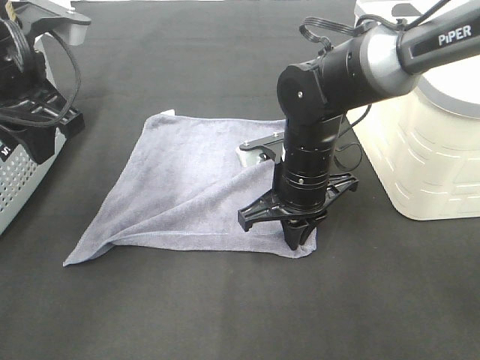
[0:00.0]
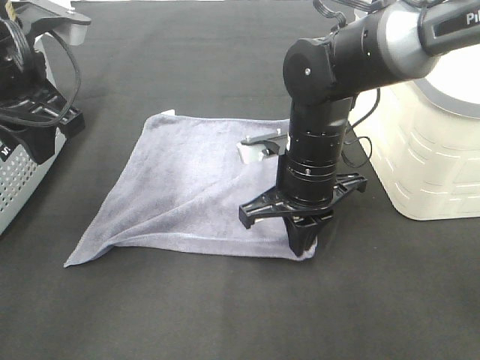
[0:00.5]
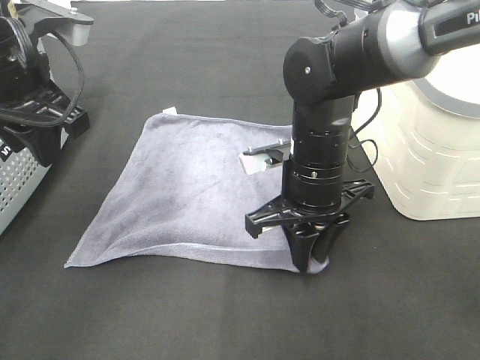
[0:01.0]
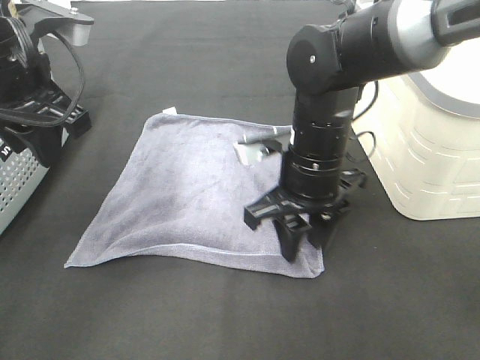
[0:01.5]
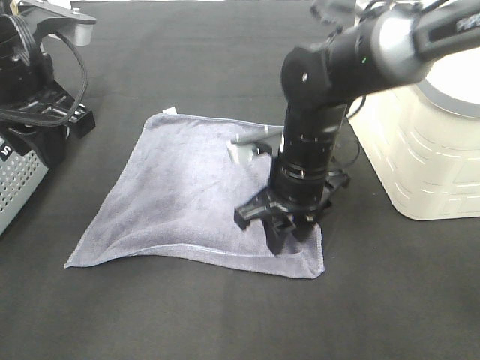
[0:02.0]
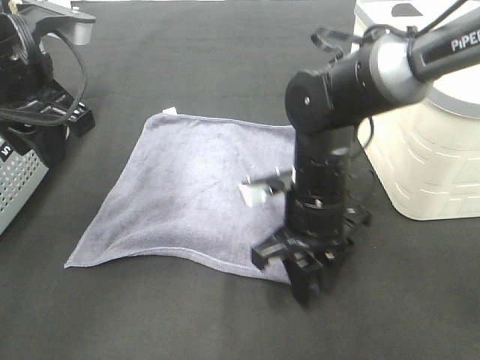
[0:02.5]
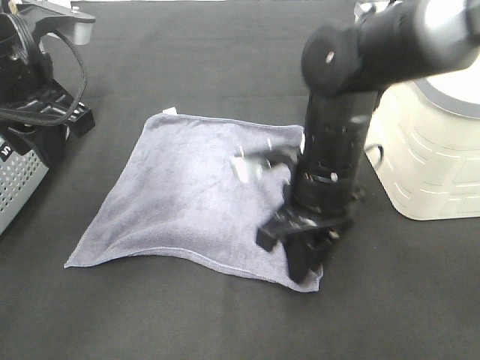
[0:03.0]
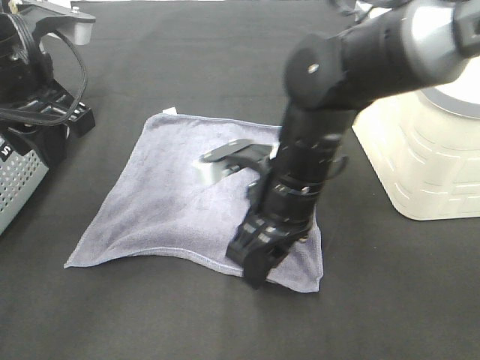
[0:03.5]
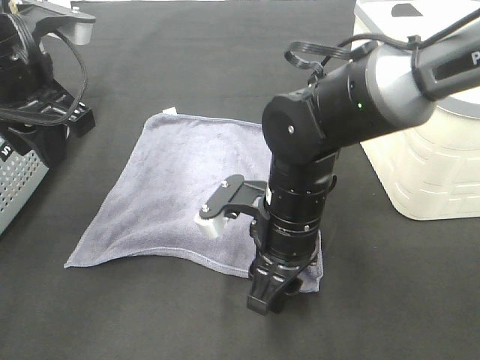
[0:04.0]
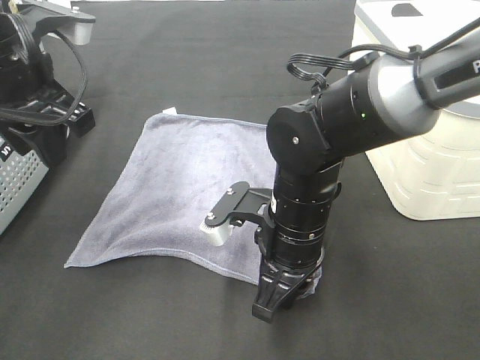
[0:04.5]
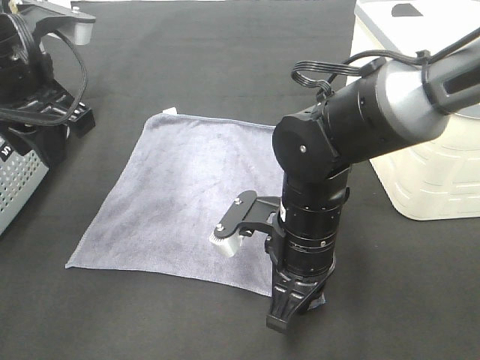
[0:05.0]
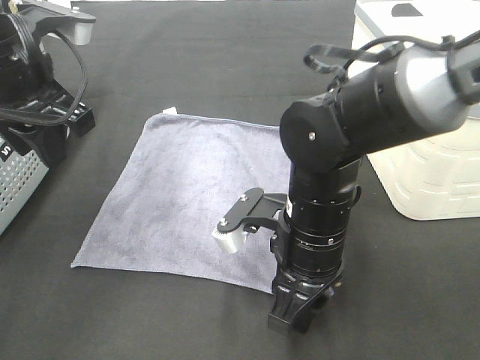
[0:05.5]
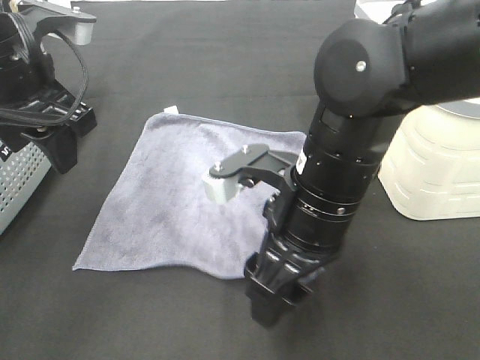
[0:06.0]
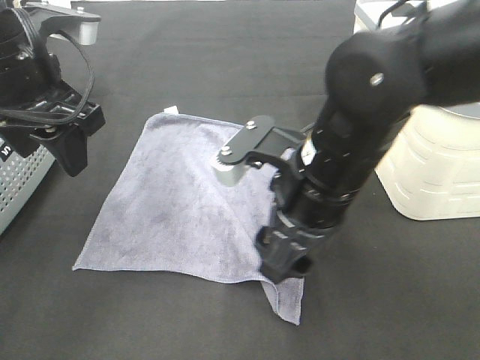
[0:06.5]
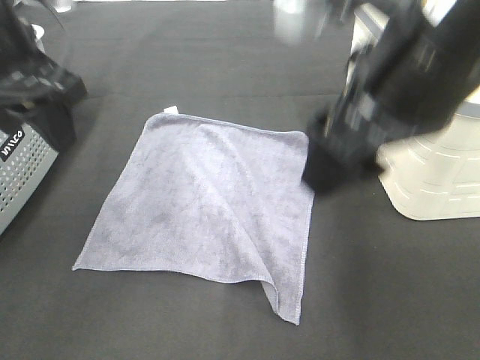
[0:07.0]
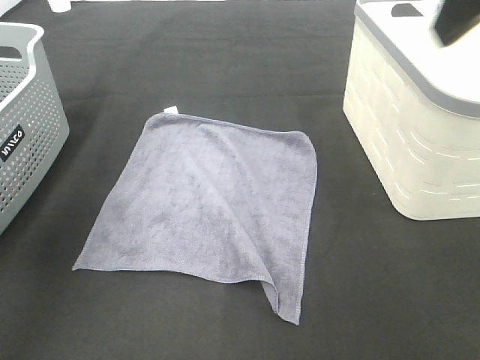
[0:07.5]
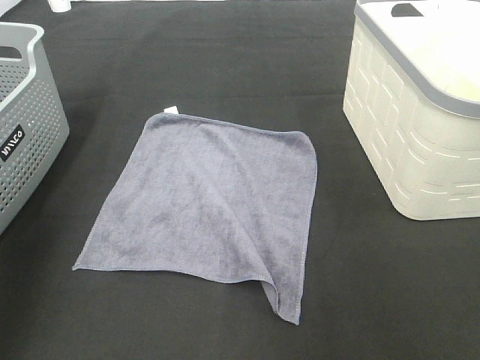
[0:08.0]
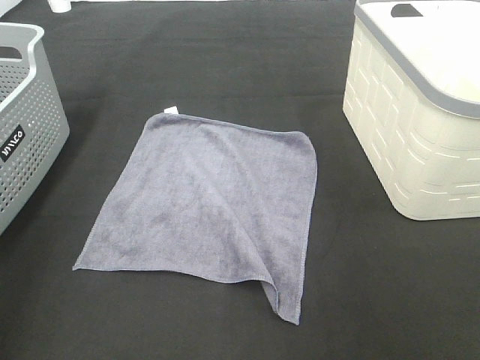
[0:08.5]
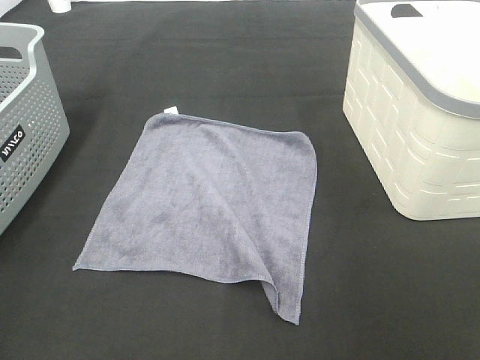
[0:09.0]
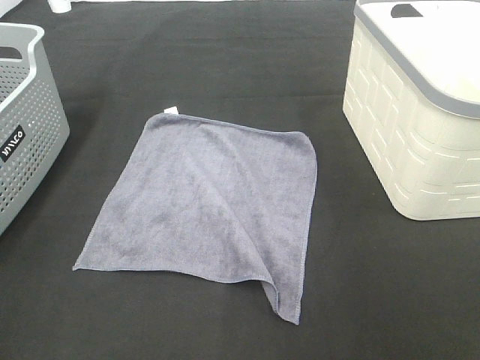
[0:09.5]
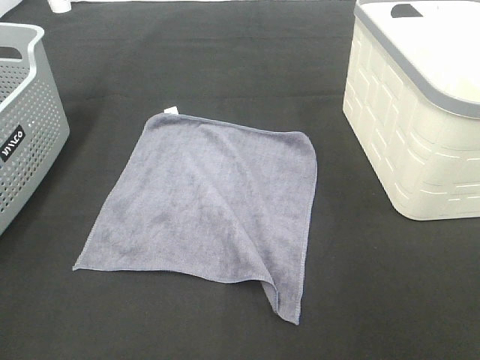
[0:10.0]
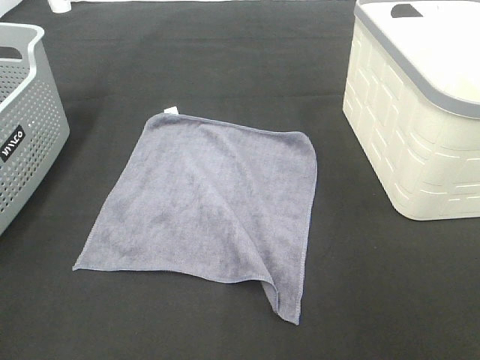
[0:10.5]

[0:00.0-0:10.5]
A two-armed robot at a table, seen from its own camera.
Task of the whole recording: Remove the towel and place it.
0:00.0 to 0:02.0: The right gripper opens its fingers.
0:02.0 to 0:04.0: The right gripper travels backward by about 5 cm.
0:04.0 to 0:06.5: The right gripper goes some 10 cm upward, and closes and opens again.
0:06.5 to 0:08.5: The right gripper travels to the right, upward and backward by approximately 30 cm. Meanwhile the left gripper is displaced backward and to the left by about 25 cm.

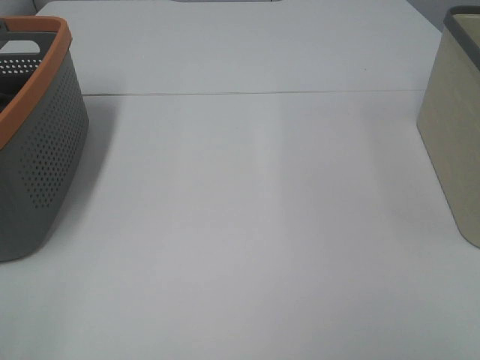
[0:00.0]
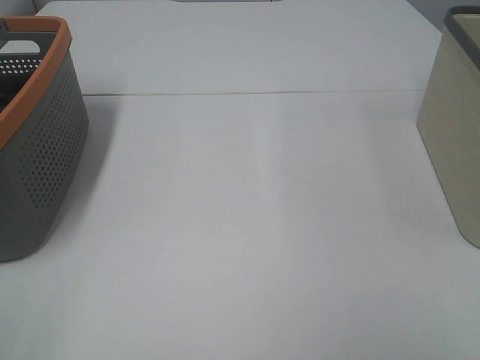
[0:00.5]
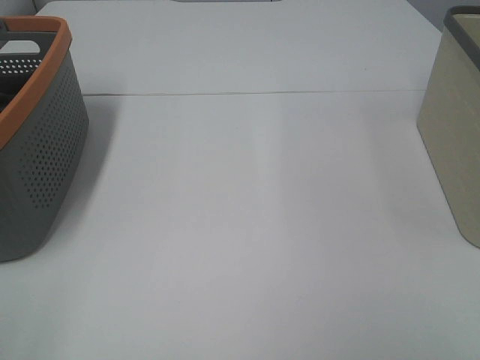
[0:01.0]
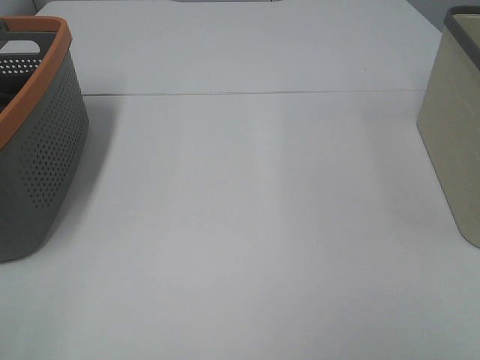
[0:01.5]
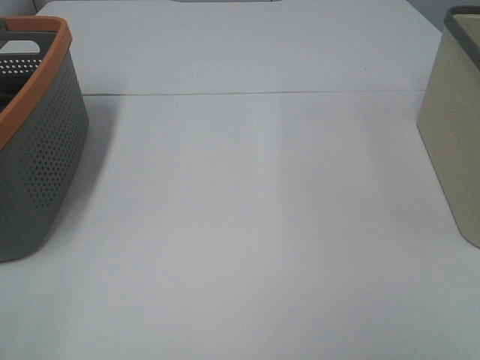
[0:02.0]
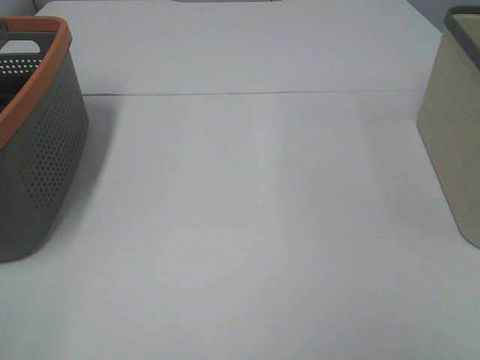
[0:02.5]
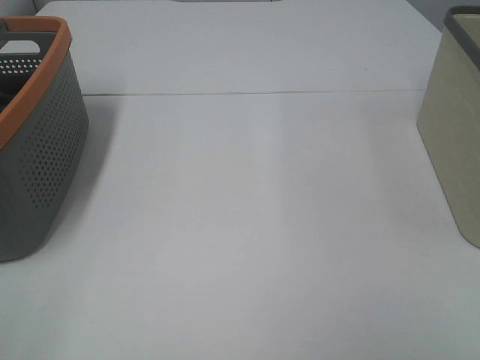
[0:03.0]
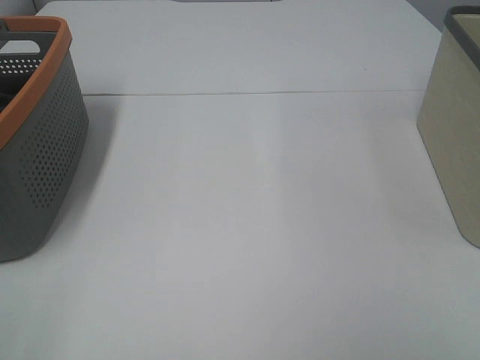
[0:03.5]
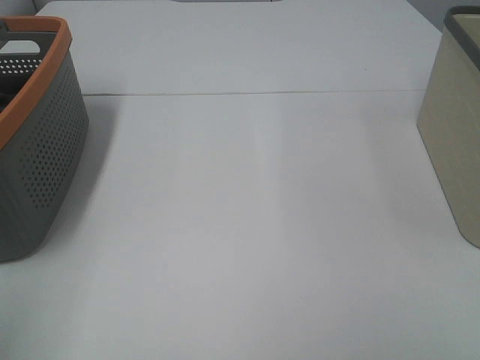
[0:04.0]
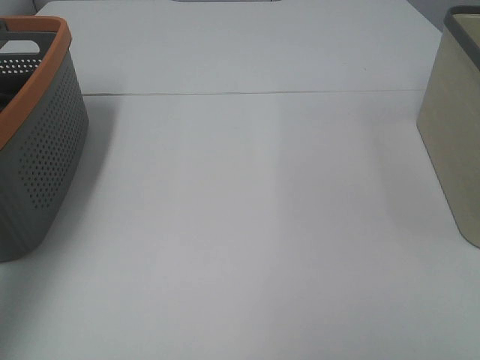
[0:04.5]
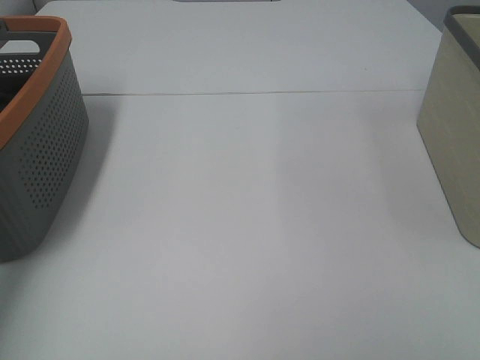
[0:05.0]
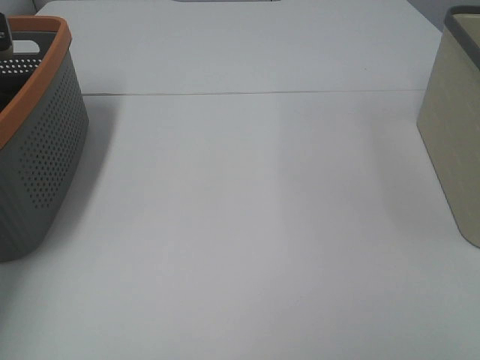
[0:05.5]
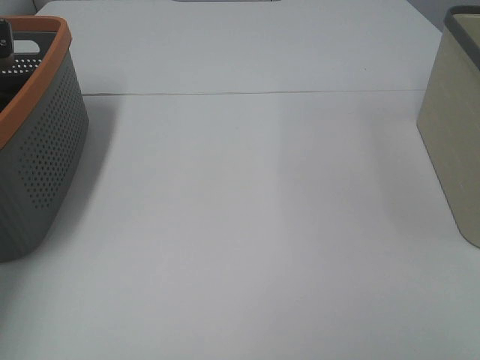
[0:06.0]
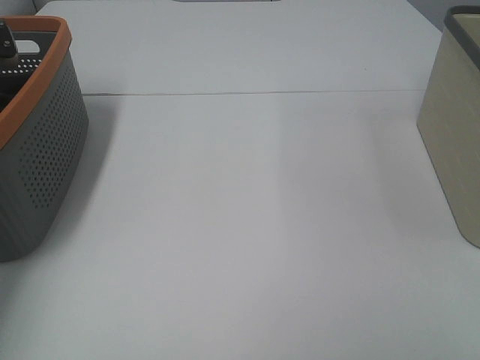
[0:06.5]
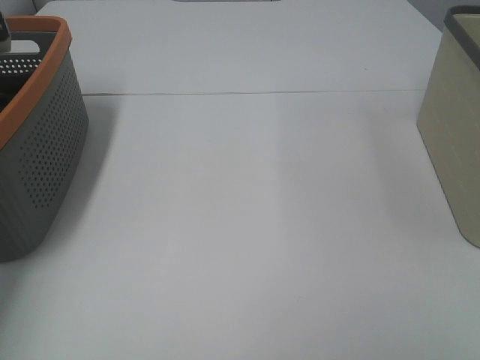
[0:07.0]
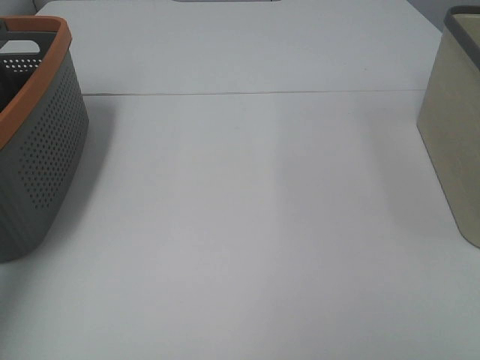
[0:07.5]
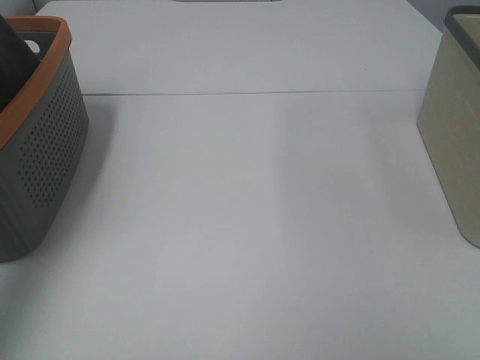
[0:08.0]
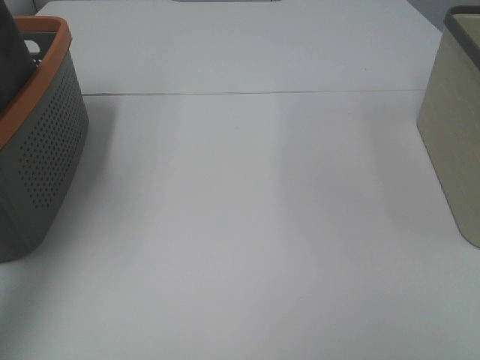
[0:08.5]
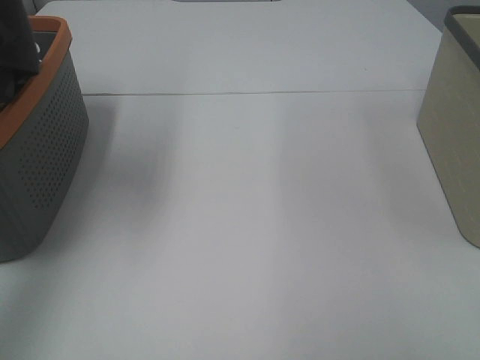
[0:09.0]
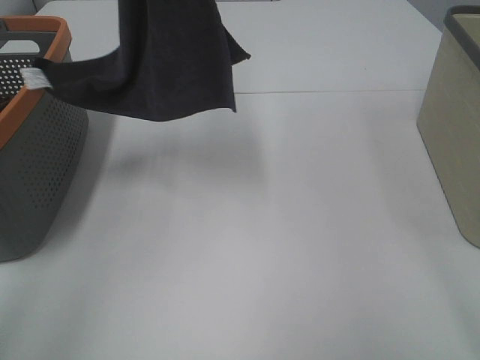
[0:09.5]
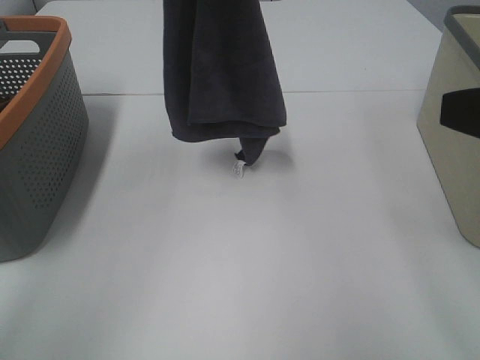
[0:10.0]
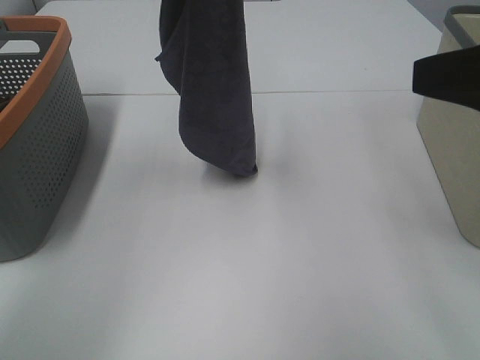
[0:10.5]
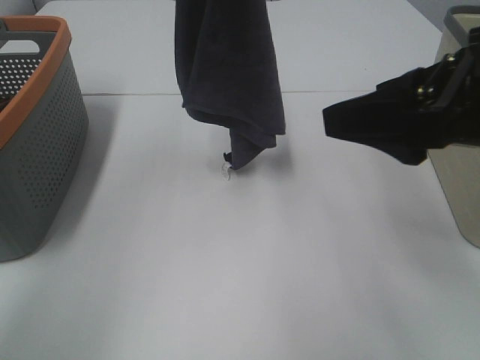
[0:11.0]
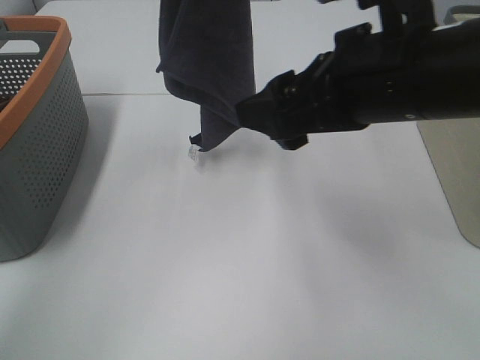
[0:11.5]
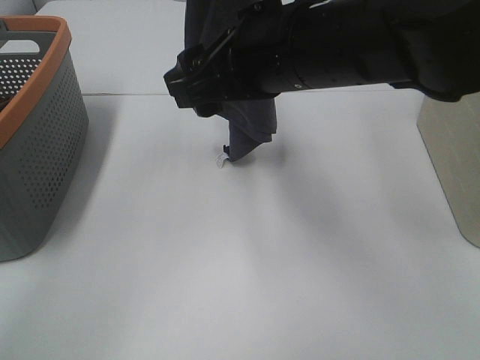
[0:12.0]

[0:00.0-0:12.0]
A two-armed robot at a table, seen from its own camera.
Task of the whole recording: Remove the towel and place it.
0:00.0 to 0:02.0: Both grippers stay put.
0:04.0 to 0:06.0: The left gripper travels forward and downward by about 40 cm, and closes up.
0:06.0 to 0:08.0: The left gripper moves upward and backward, some 30 cm, and closes up.
0:08.0 to 0:10.0: The right gripper travels forward by approximately 15 cm, while the left gripper goes roughly 20 cm to the right.
0:10.0 to 0:12.0: The right gripper shifts approximately 25 cm to the left and forward.

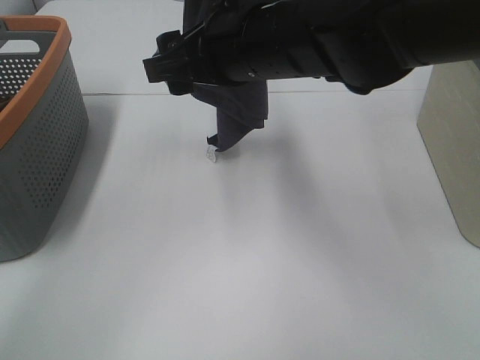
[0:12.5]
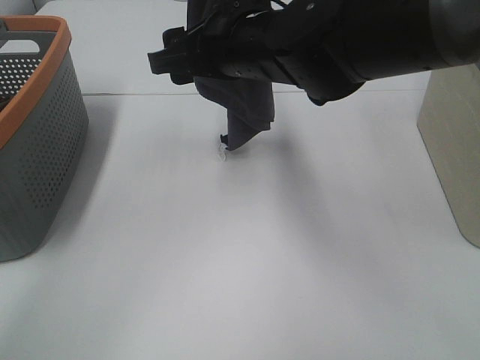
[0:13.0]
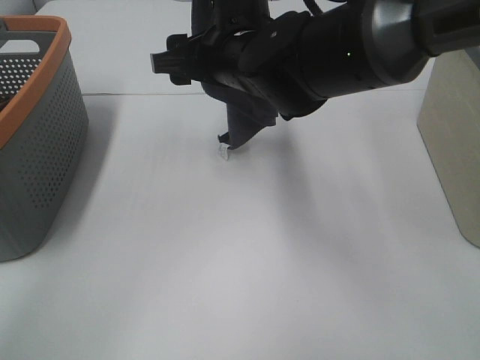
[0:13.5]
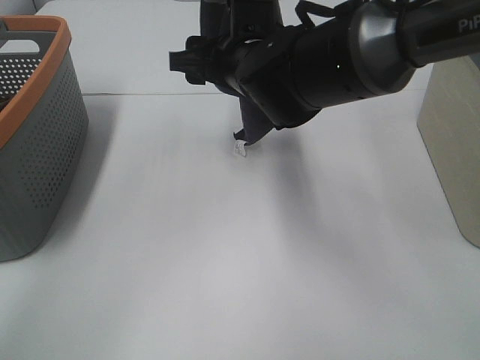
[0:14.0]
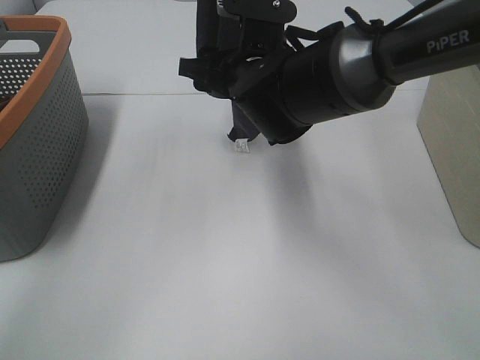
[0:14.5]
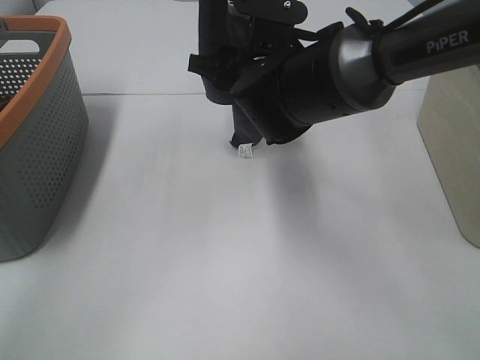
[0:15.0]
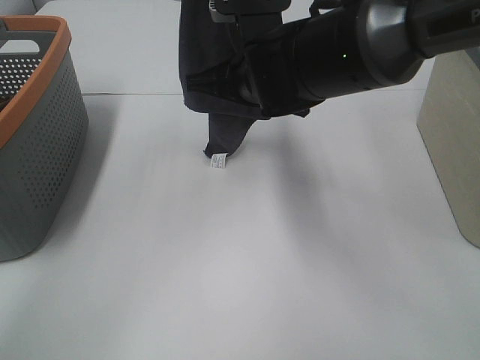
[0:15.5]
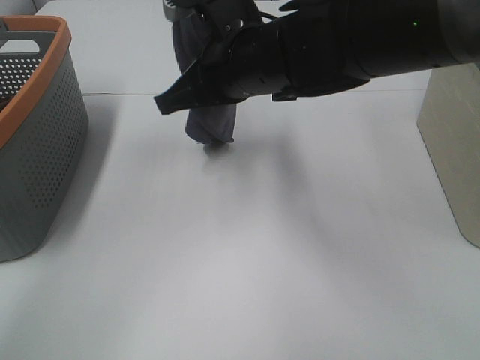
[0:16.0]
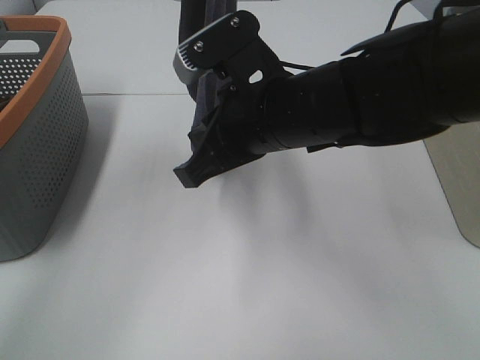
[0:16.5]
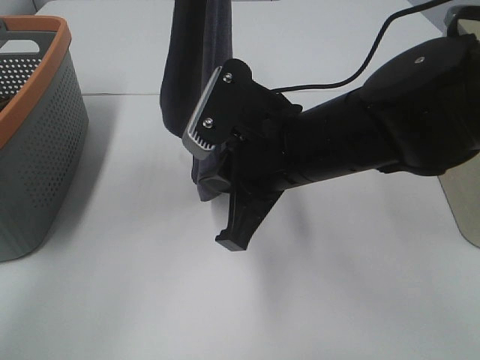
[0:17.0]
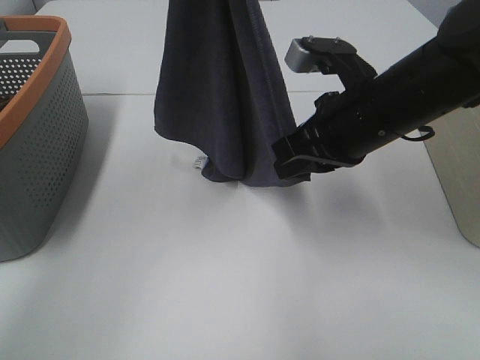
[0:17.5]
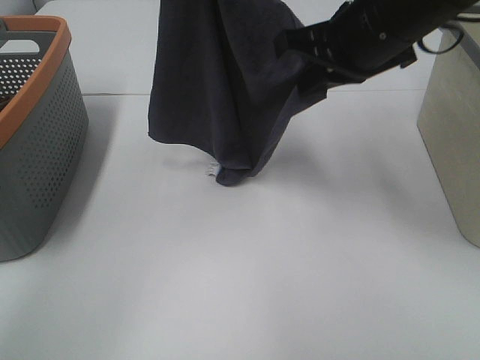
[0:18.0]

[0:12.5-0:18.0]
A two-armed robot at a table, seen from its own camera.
Task of the whole recording: Remove the towel and place it.
Step, 0:12.5 to 0:15.5: Right hand: grab a corner of the grey towel and straighten it.
Step, 0:16.0 to 0:18.0: Right hand: spread the grey towel flat on the table.
0:12.5 to 0:14.5: The right gripper travels downward and forward by approximately 10 cm.
0:14.5 to 0:16.0: The right gripper goes approximately 5 cm backward, and closes.
0:16.0 to 0:18.0: The right gripper moves to the right and upward, roughly 15 cm.
